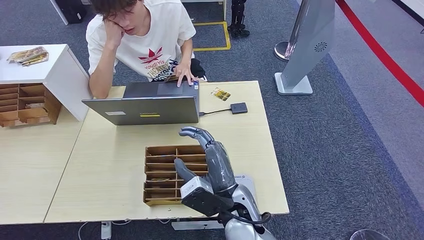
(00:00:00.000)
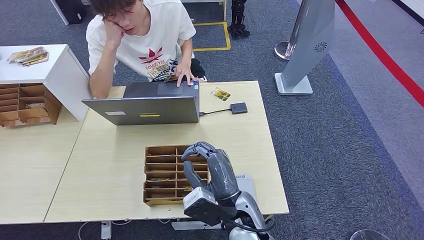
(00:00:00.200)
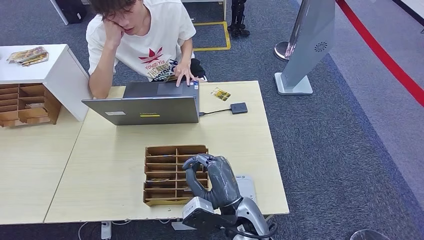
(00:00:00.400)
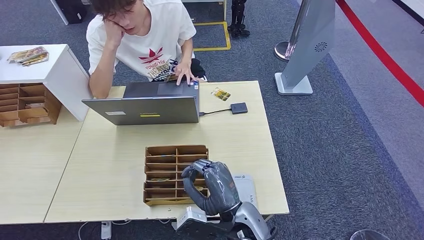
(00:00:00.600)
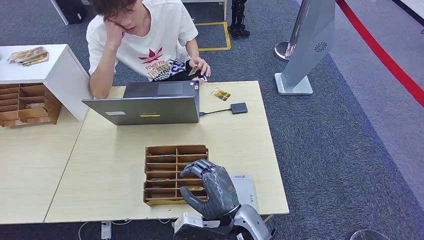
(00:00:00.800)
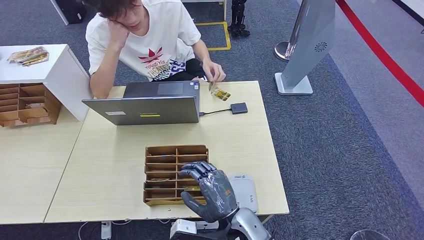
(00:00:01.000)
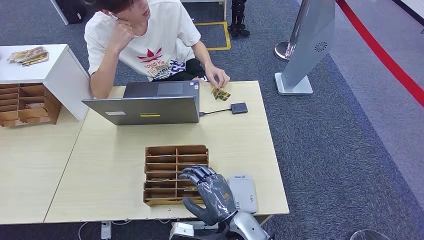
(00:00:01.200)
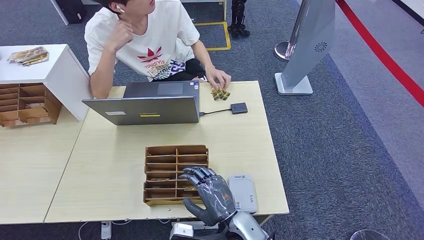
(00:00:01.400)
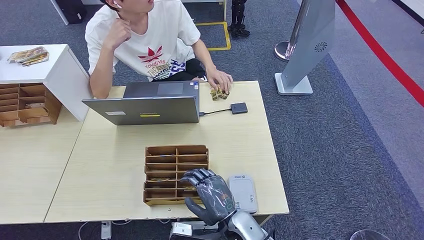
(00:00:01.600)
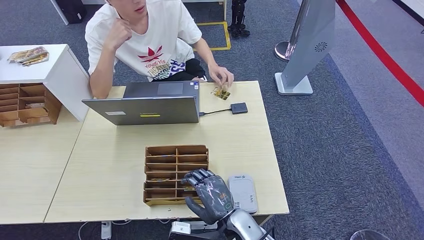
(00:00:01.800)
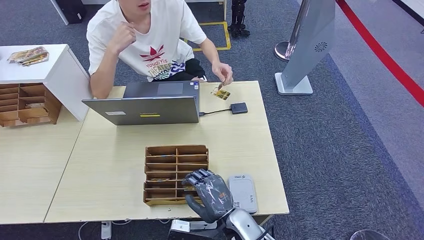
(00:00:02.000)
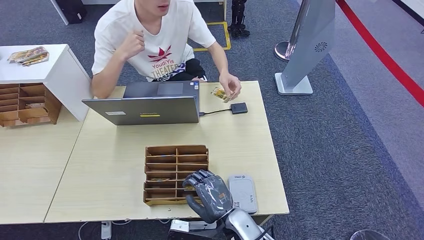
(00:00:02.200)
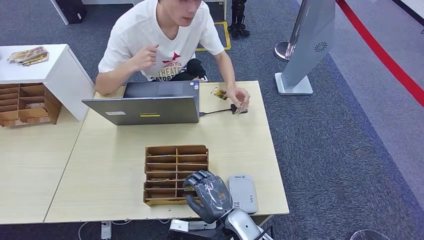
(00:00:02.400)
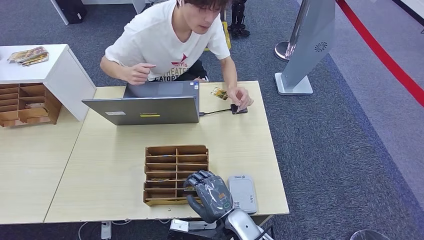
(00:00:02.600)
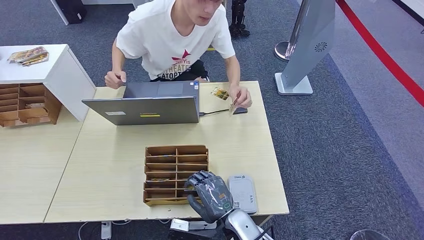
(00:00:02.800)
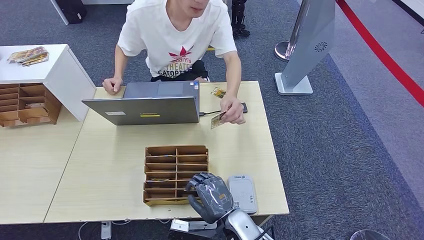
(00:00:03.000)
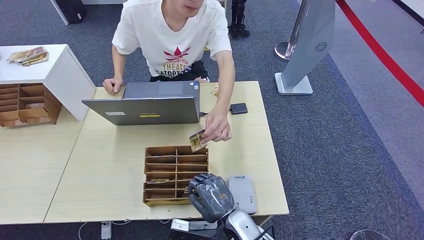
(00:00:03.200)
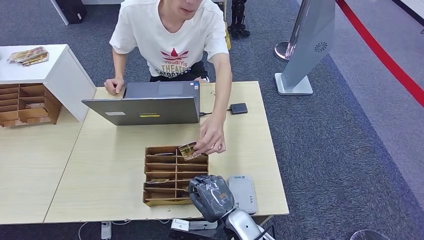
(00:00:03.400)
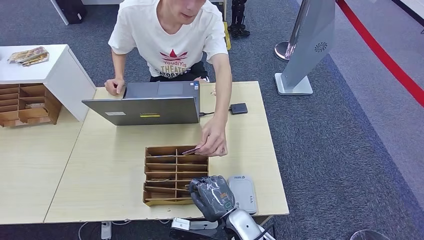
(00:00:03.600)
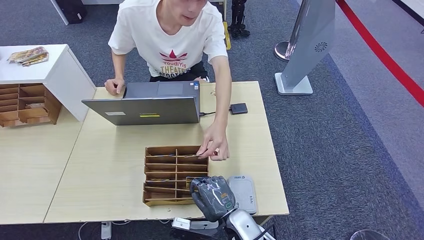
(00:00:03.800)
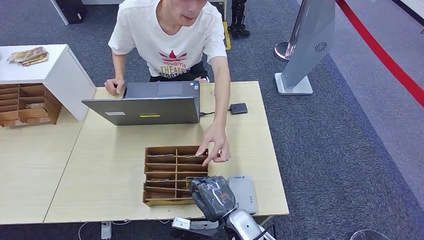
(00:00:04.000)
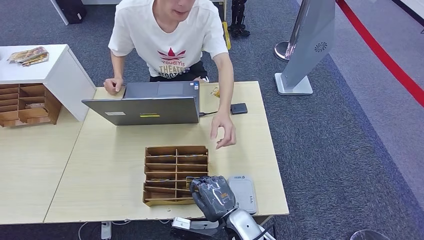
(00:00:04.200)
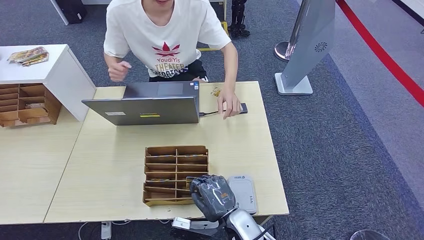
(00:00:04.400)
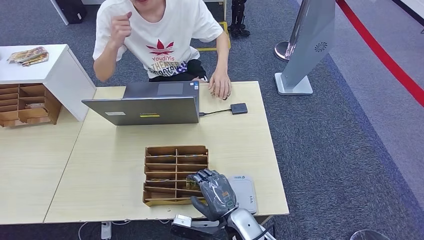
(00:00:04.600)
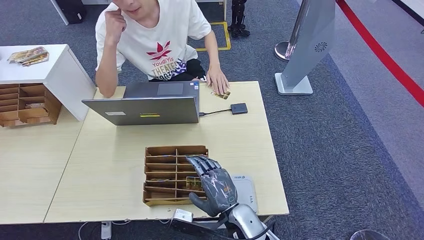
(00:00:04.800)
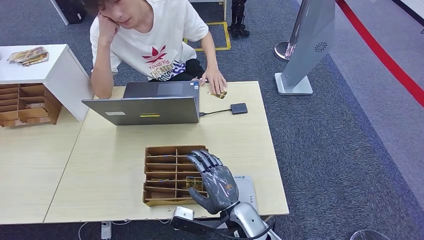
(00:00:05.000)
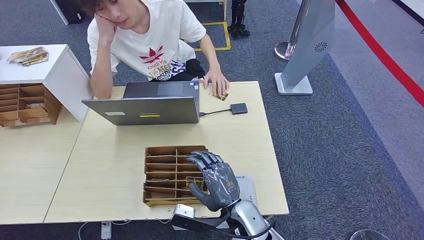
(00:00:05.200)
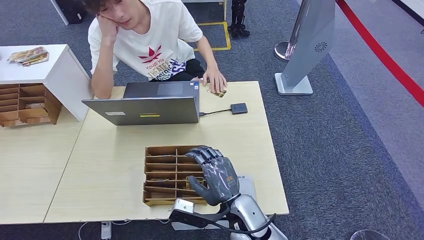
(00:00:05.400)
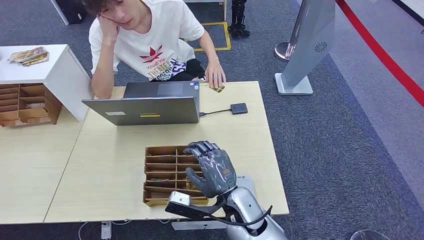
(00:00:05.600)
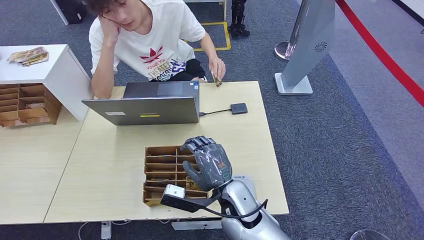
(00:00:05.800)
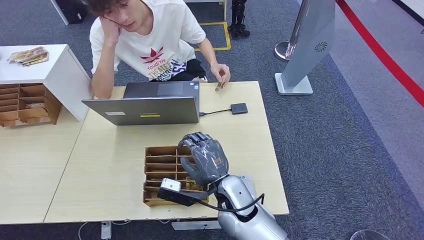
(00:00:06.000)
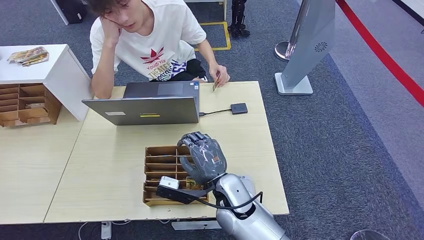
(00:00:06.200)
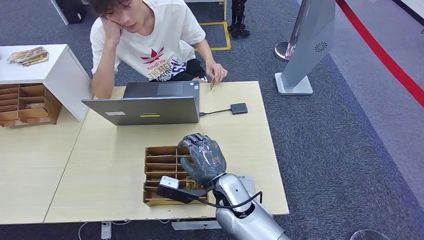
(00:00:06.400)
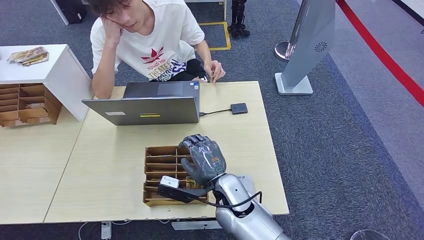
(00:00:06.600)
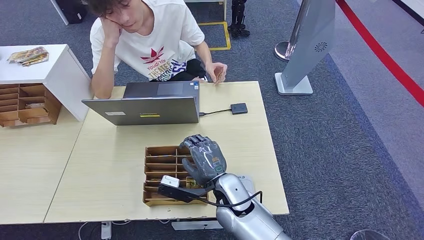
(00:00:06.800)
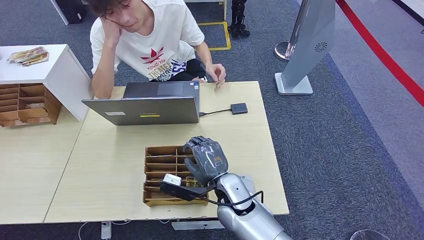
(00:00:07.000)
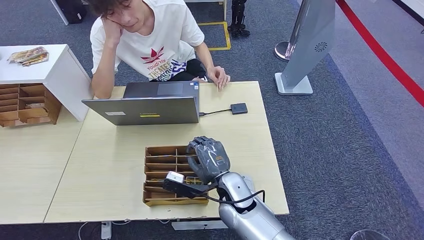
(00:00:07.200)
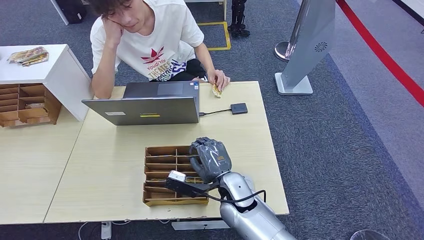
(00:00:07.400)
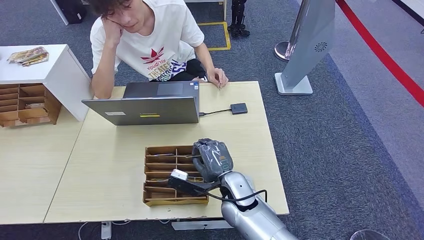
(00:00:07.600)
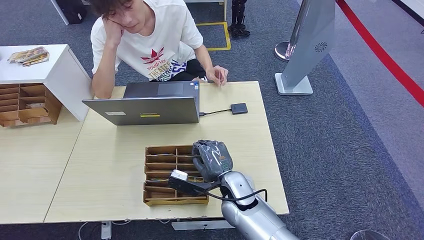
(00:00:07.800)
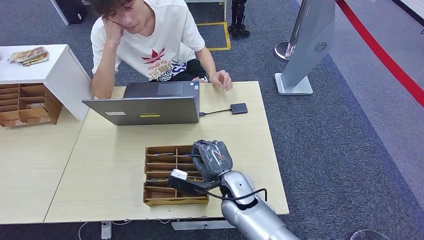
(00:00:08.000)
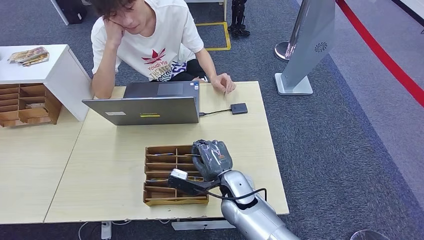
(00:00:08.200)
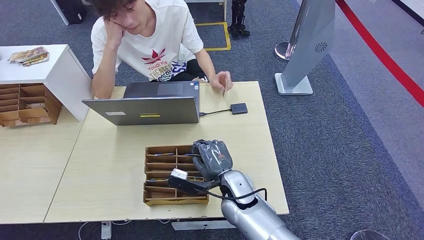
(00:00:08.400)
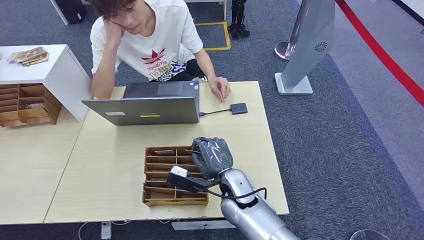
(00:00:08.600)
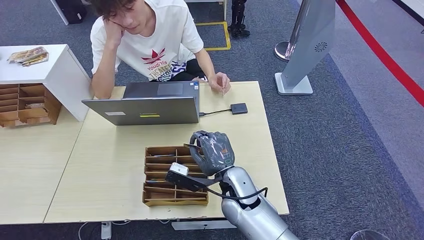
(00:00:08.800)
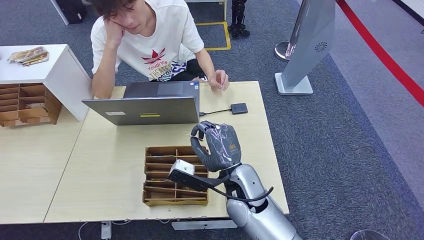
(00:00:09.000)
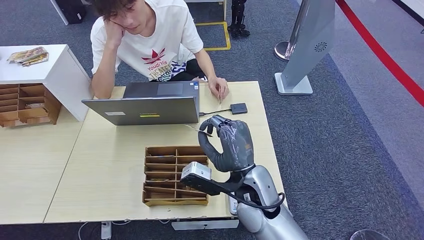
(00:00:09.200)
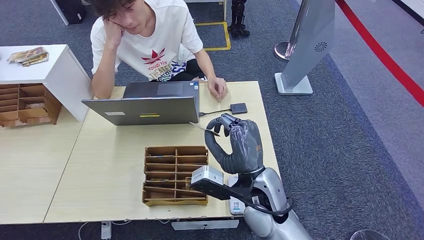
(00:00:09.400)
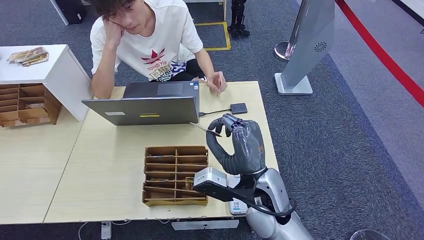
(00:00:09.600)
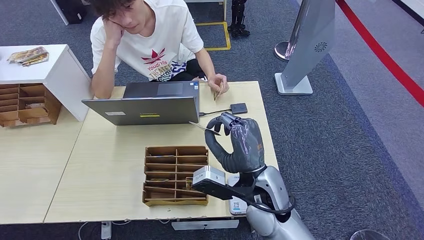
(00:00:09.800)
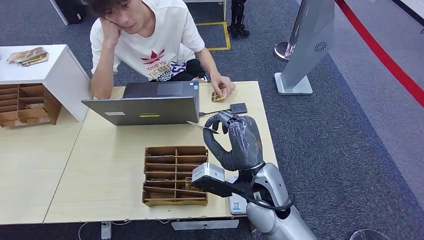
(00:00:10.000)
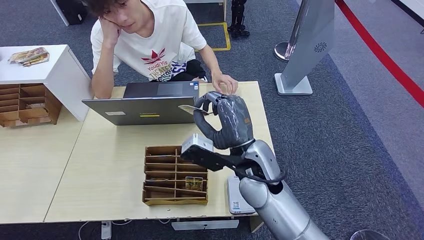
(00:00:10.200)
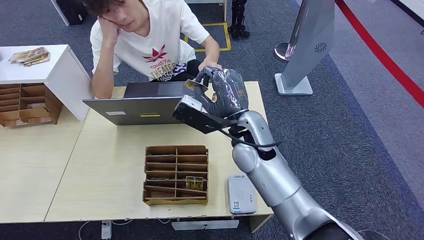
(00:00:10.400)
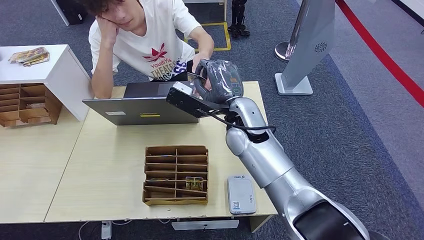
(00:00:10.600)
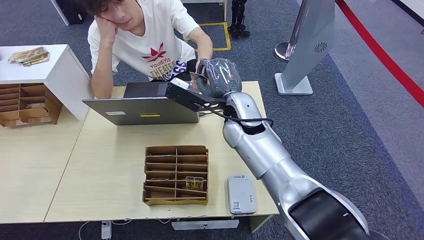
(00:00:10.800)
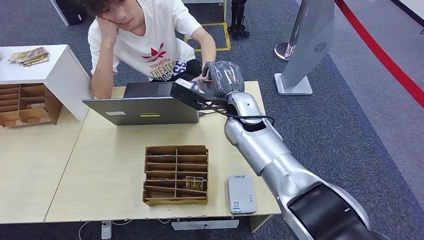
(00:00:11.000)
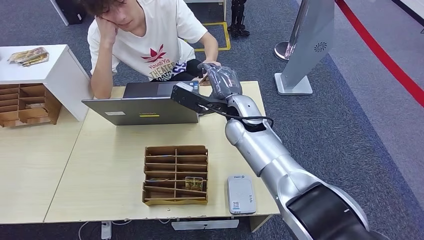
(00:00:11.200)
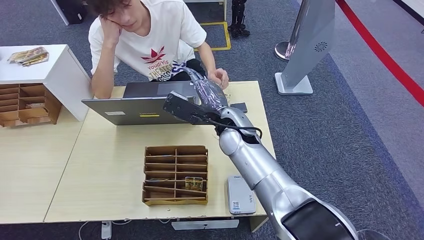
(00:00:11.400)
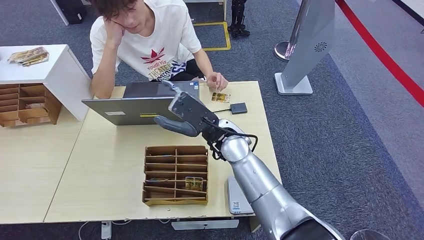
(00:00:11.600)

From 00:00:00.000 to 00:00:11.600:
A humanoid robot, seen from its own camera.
Step, from 00:00:00.400 to 00:00:08.800: Pick up the room key from the key card box.
Step, from 00:00:09.000 to 00:00:11.600: Hand the room key to the person.
From 00:00:00.000 to 00:00:01.400: The right hand is displaced downward by about 10 cm.
From 00:00:01.400 to 00:00:02.800: There are only small adjustments of the hands.
From 00:00:02.800 to 00:00:04.400: Both hands stay put.
From 00:00:04.400 to 00:00:05.800: The right hand heads upward and forward, covering some 10 cm.
From 00:00:05.800 to 00:00:08.800: The hands make only small movements.
From 00:00:08.800 to 00:00:10.200: The right hand moves upward, roughly 10 cm.
From 00:00:10.200 to 00:00:11.600: The right hand goes approximately 5 cm forward.
